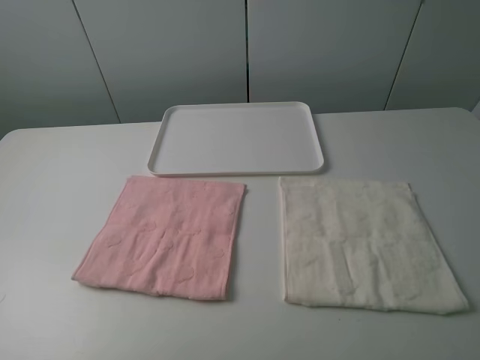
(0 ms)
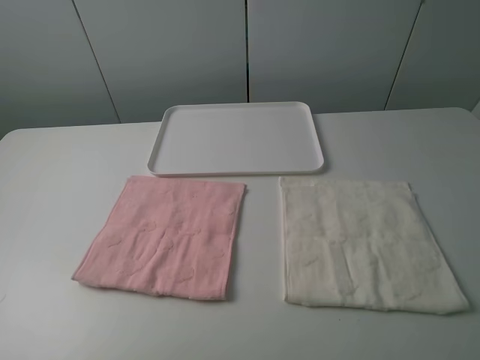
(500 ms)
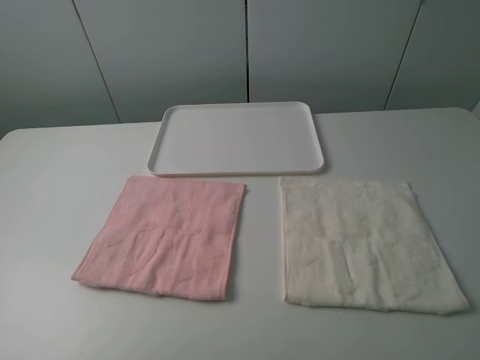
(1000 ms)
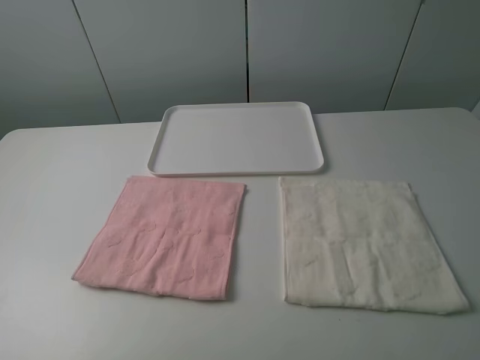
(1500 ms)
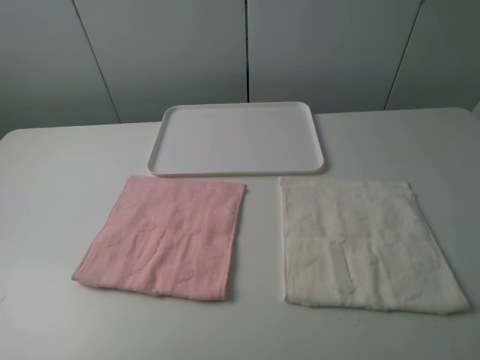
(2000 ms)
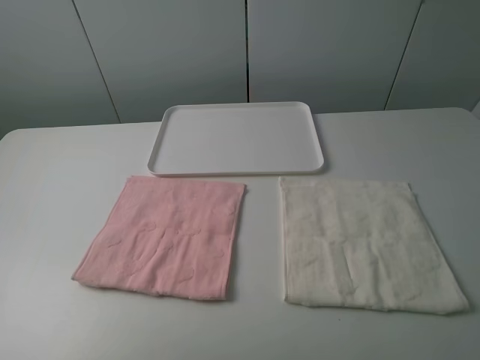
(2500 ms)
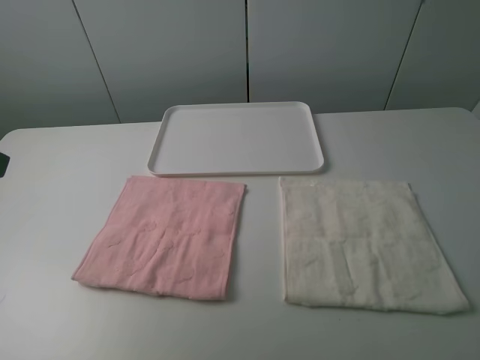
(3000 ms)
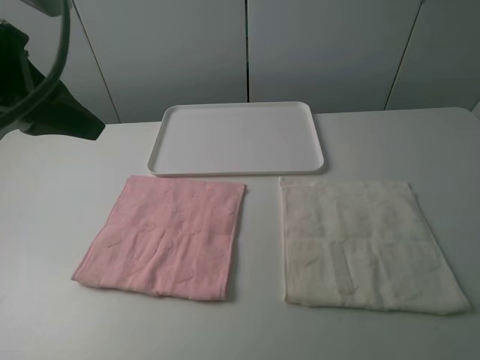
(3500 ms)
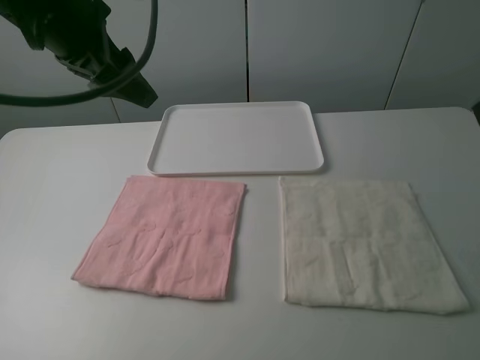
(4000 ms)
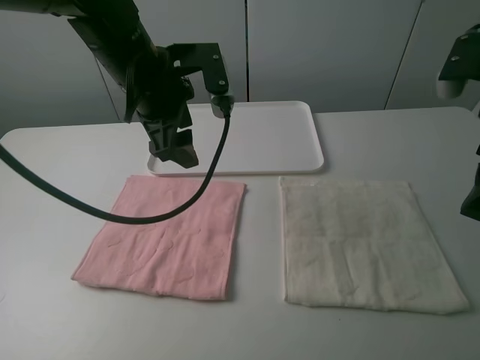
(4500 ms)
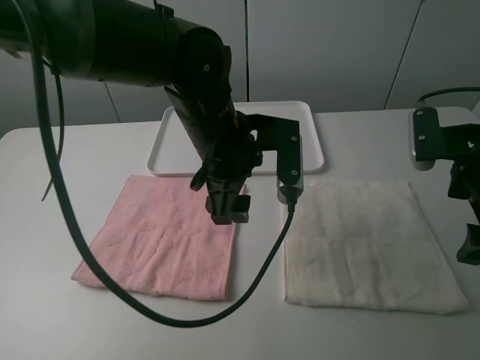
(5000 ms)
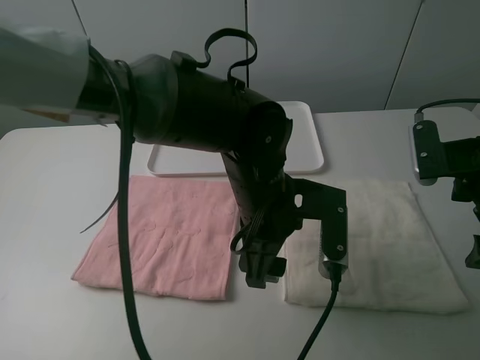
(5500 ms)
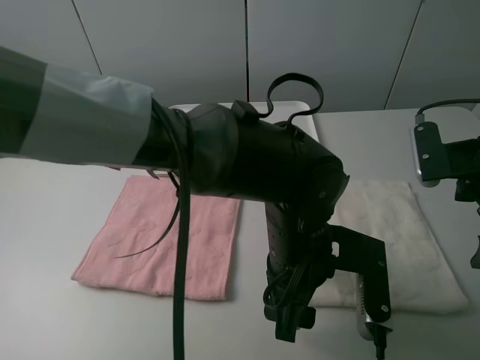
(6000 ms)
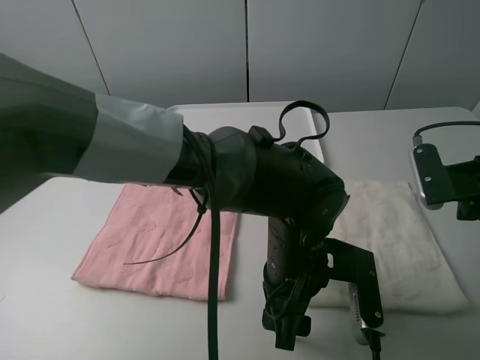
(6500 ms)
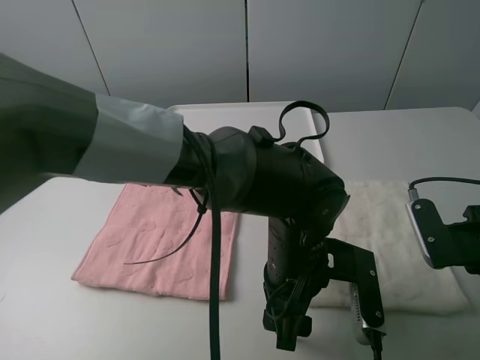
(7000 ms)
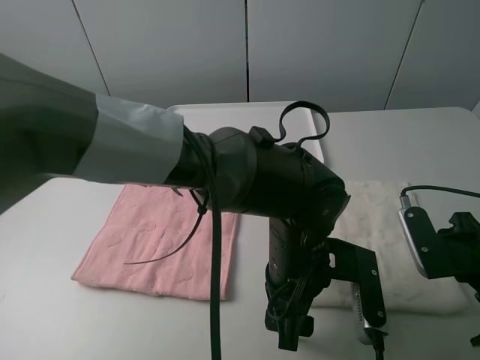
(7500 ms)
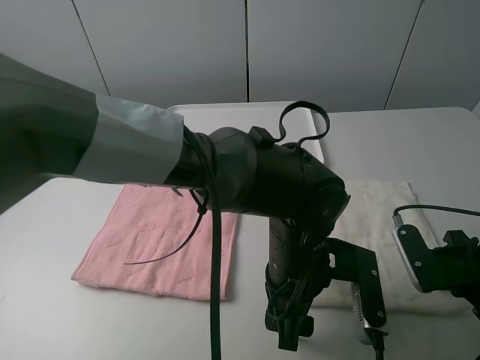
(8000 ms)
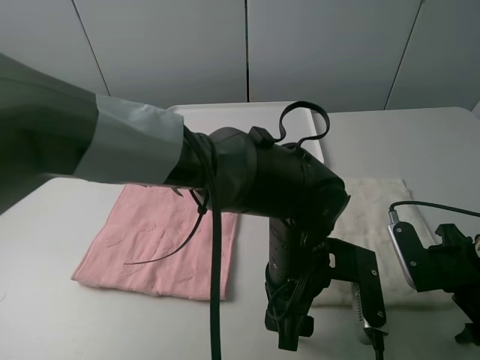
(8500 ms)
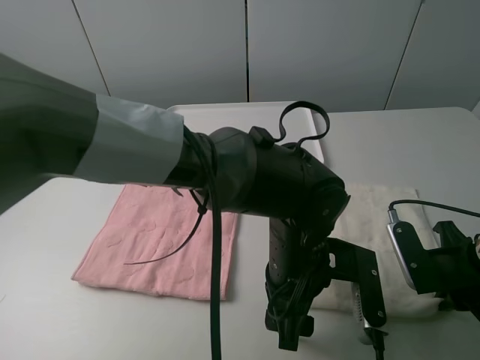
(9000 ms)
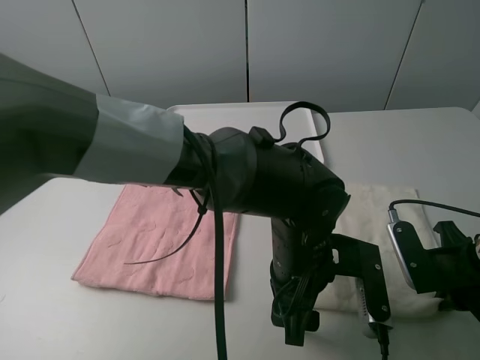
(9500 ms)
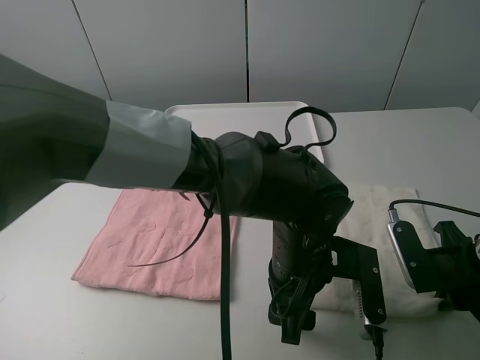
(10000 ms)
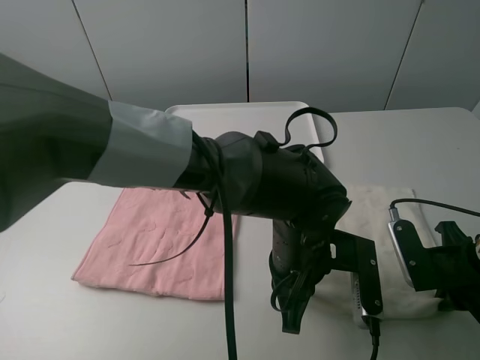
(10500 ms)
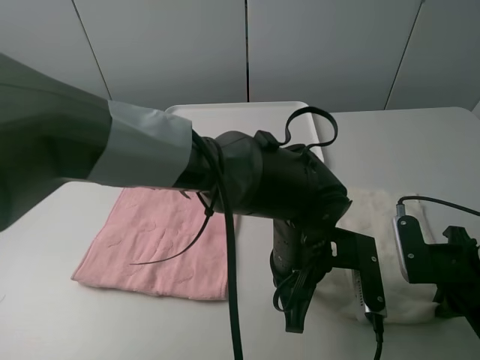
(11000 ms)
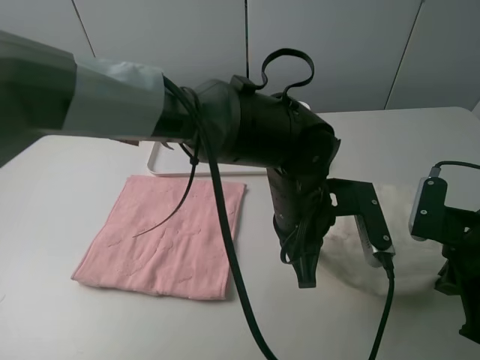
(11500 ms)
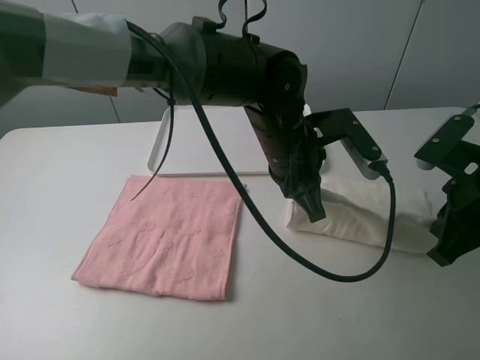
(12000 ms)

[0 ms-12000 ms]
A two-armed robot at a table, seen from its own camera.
Task of the whole recording: fold one of the towels by two grippers and place it on the tray,then fold another towel by two grippers and place it on the folded towel.
Step, 0 ms to 10500 ms: Grasp the white towel with the left gripper.
0 ms to 2000 ms: Both grippers stay about where they are.
2000 ms to 4000 ms: The left gripper goes approximately 35 cm forward and to the right.
4000 ms to 6000 ms: The right gripper is displaced downward by some 15 cm. The left gripper is displaced to the right, downward and backward by roughly 35 cm.
6000 ms to 8000 ms: The right gripper heads downward and backward, covering about 10 cm.
8000 ms to 10000 ms: The right gripper closes its fingers.
10000 ms to 12000 ms: The left gripper is displaced forward and upward by some 15 cm, and closes its fingers. Meanwhile the right gripper heads upward, covering some 5 cm.

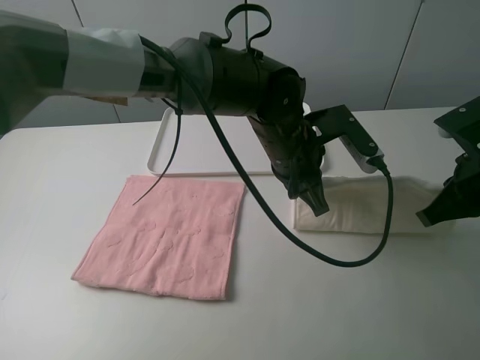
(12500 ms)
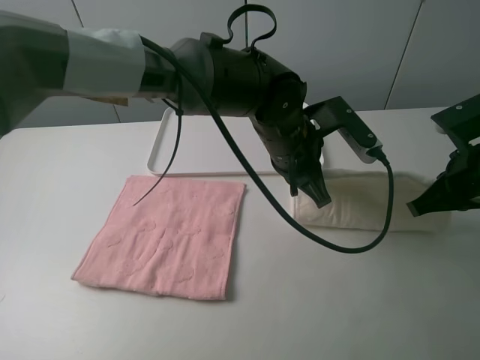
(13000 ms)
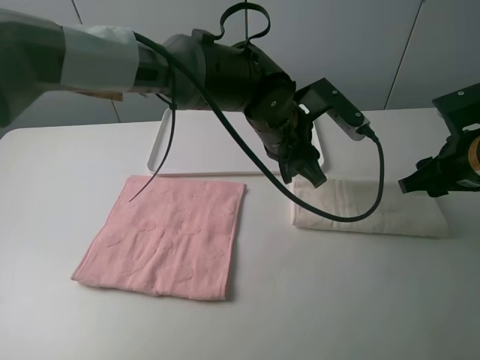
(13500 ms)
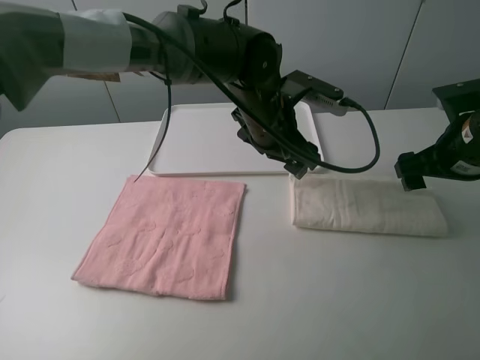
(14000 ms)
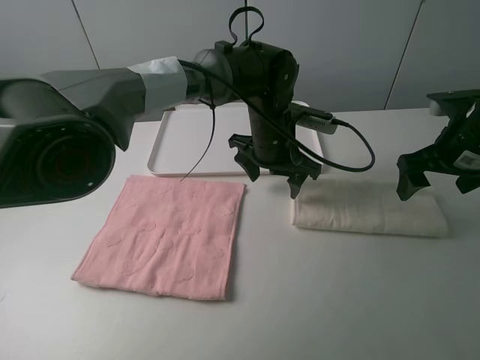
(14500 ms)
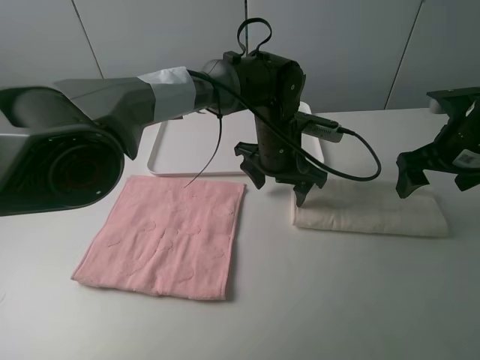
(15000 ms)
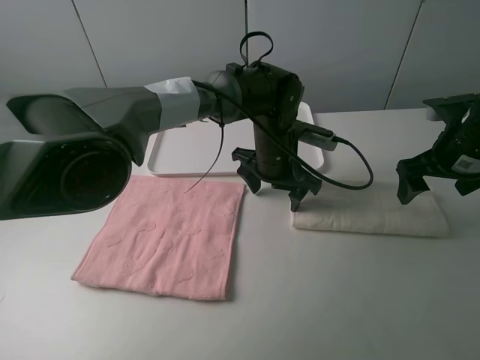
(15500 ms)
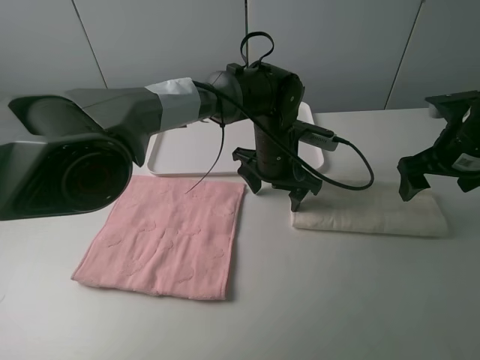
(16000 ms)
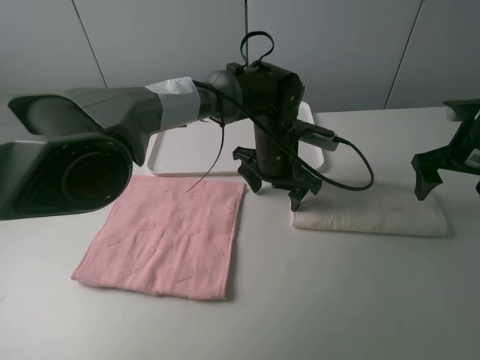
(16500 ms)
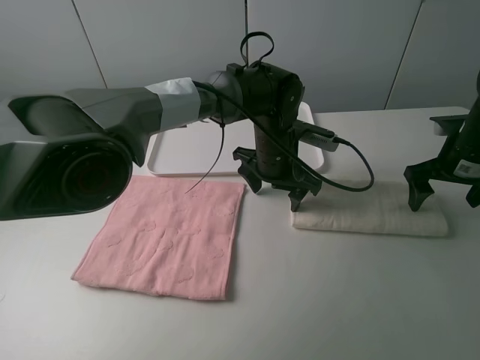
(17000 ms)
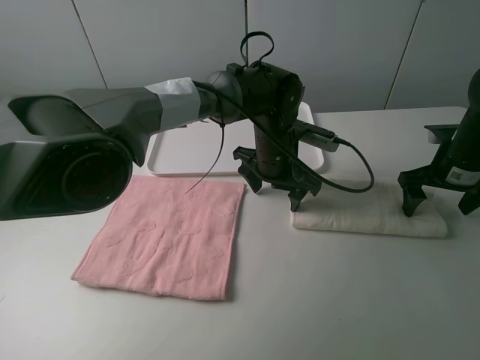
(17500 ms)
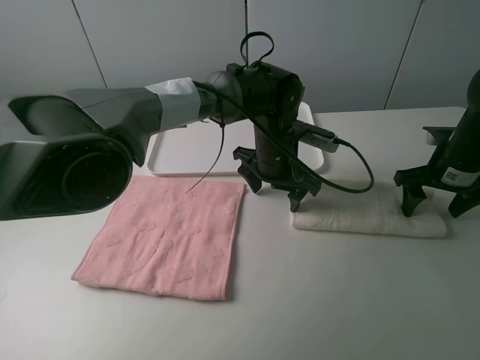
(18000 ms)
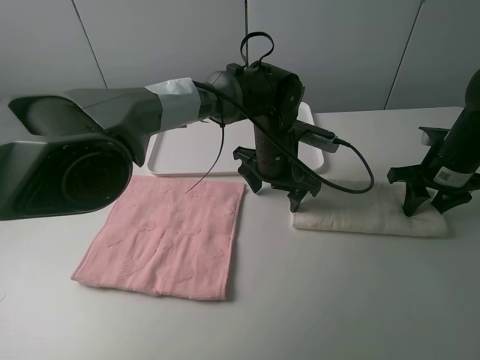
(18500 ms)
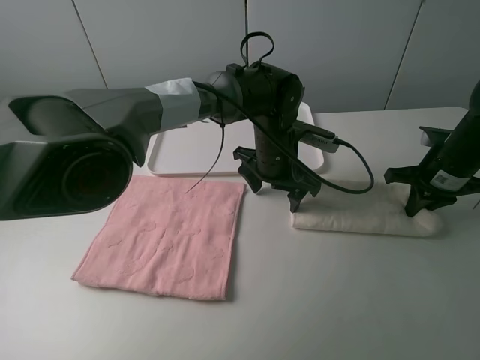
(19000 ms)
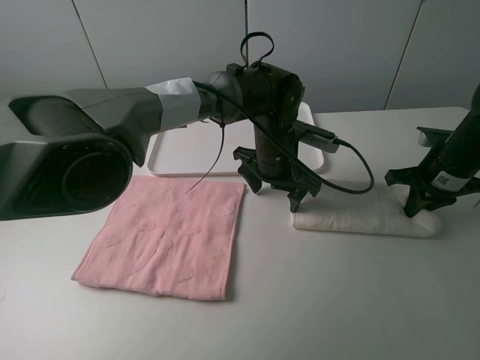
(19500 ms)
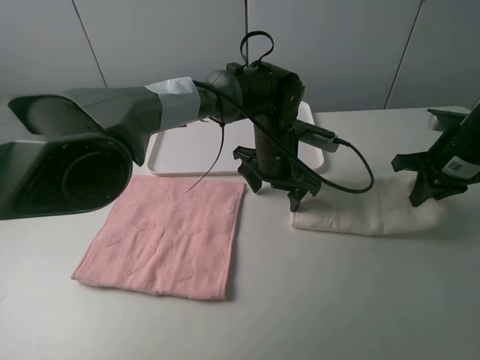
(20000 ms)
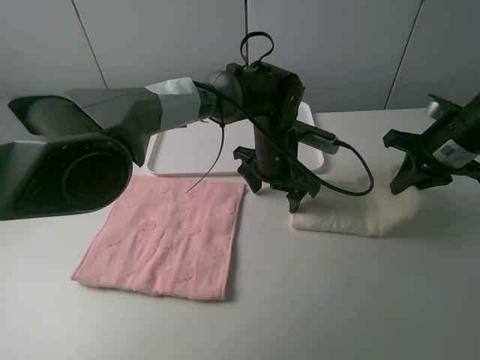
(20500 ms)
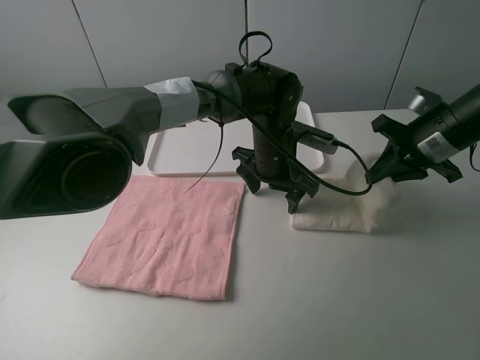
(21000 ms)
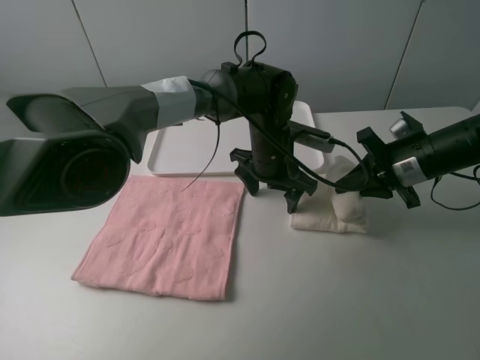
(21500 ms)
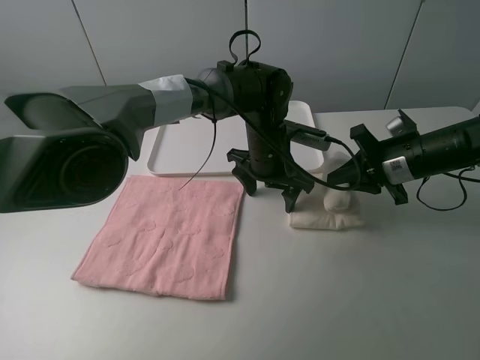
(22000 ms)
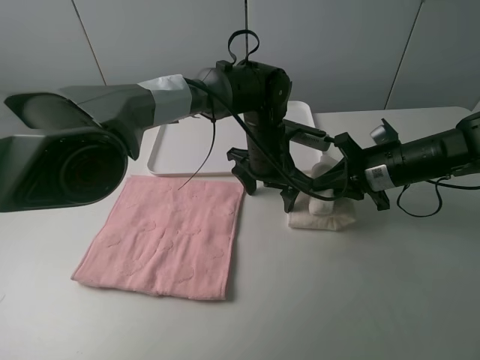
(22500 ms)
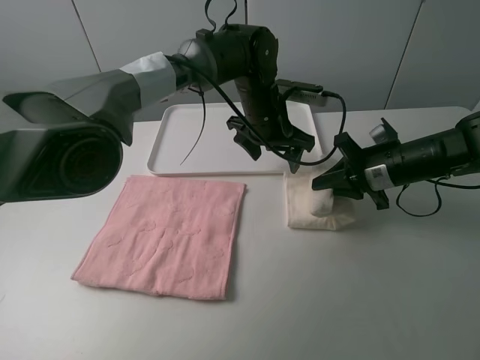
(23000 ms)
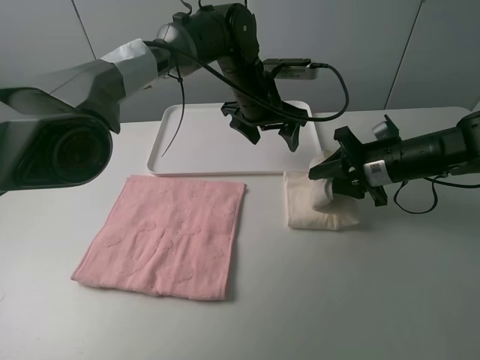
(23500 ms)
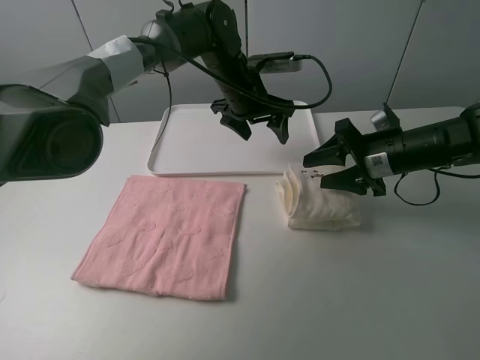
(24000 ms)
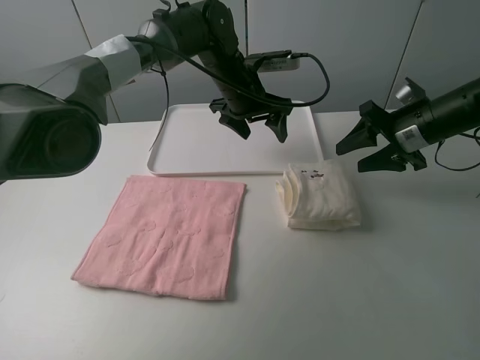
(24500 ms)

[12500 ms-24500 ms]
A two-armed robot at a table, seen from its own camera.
Task of the whole recording: fold one of the towels by two grippers and place it on the tray,then fold another towel by two grippers and place it on the folded towel.
Step, 14000 ms to 15500 ms: Press the white towel with the left gripper.
Step, 16000 ms to 18500 ms: Grasp the white towel with the right gripper.
Step, 19000 ms to 23500 ms: Fold the white towel from right to left with right gripper.
12500 ms to 14500 ms: The two grippers go some 5 cm forward. The left gripper opens up, while the right gripper opens up.
14500 ms to 16500 ms: The right gripper changes place by some 5 cm.
16500 ms to 18500 ms: The right gripper shifts by approximately 5 cm, and closes.
18500 ms to 20500 ms: The right gripper is displaced upward by about 5 cm, and closes up.
20500 ms to 22500 ms: The right gripper moves downward and to the left, some 10 cm.
22500 ms to 24500 ms: The left gripper moves forward and upward, some 10 cm; the right gripper moves approximately 5 cm, and opens its fingers.

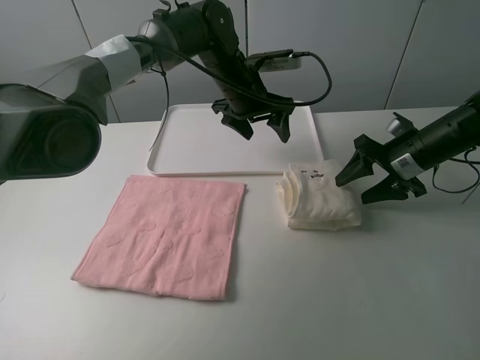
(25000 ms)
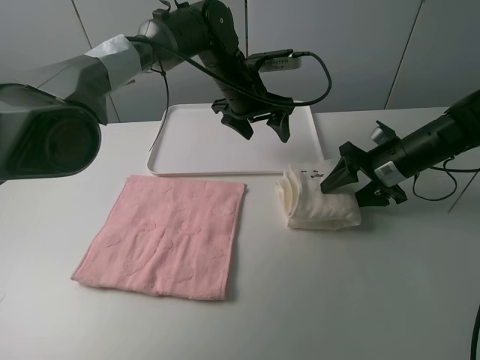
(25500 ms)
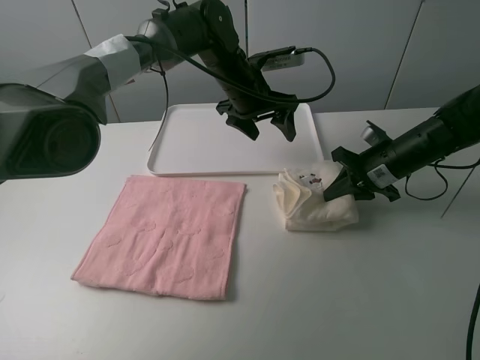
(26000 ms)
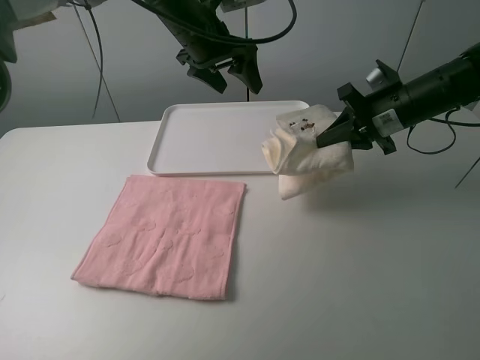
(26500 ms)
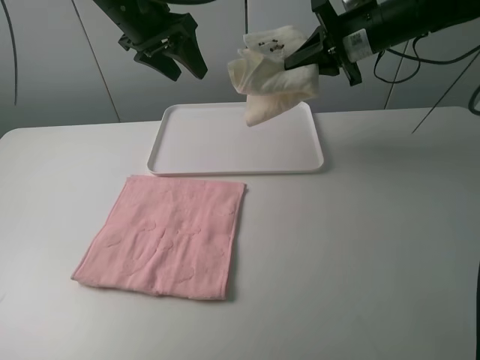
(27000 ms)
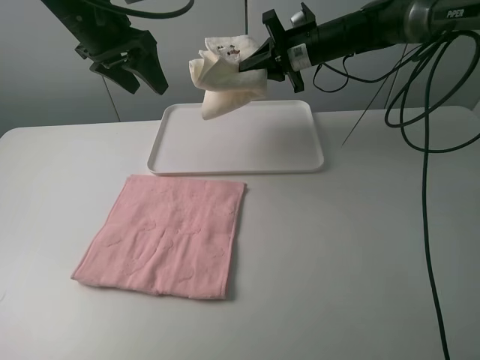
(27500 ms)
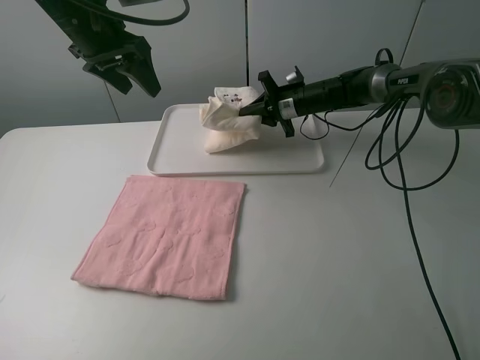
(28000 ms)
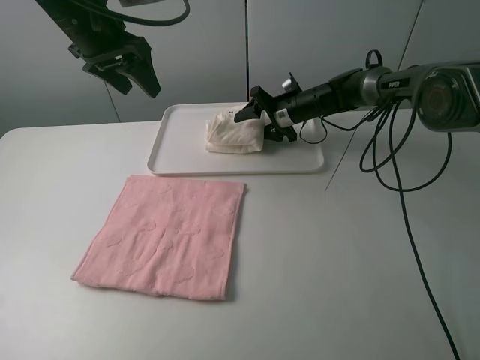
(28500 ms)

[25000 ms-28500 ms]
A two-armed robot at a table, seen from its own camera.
Task of the whole recording: fold one of the towels by two grippers and place it on the tray,then fold another towel by two grippers and place it on the folded towel.
25000 ms to 27000 ms: The left gripper goes about 20 cm to the left and upward; the right gripper shifts roughly 20 cm upward, to the left and forward, and closes its fingers.
27000 ms to 28500 ms: The left gripper travels to the left by some 5 cm, while the right gripper travels downward and forward by about 20 cm, and opens up.
